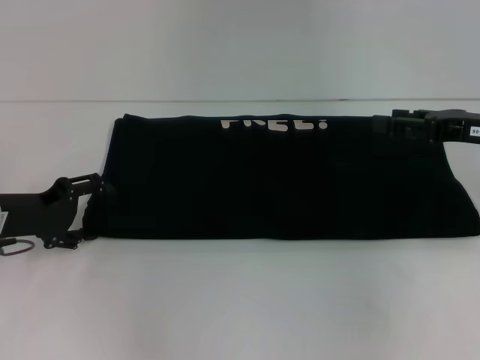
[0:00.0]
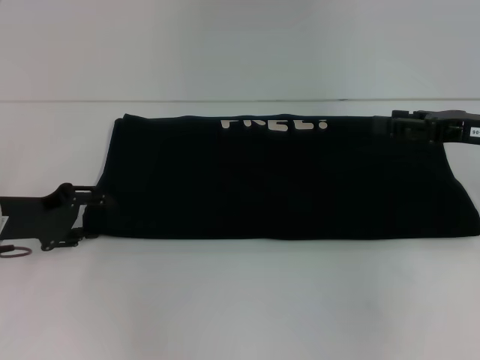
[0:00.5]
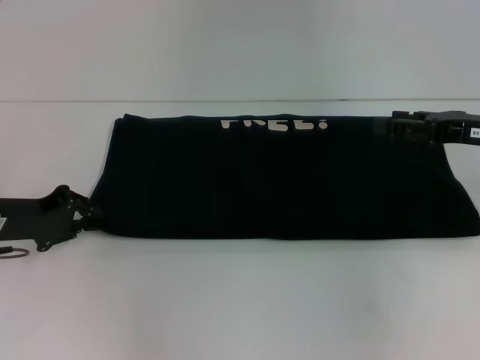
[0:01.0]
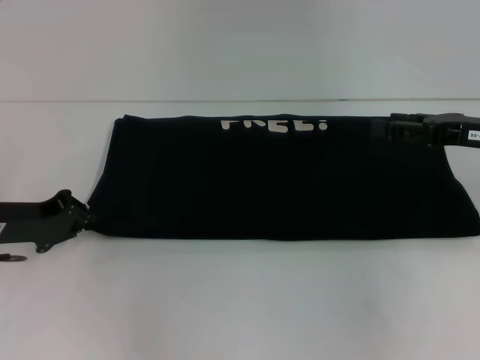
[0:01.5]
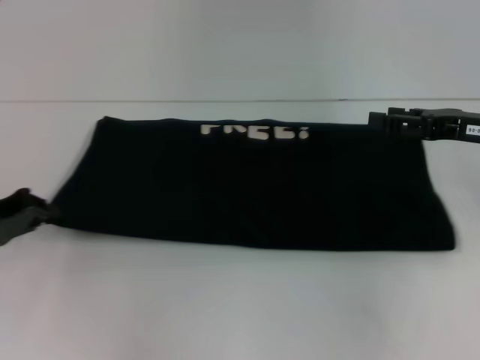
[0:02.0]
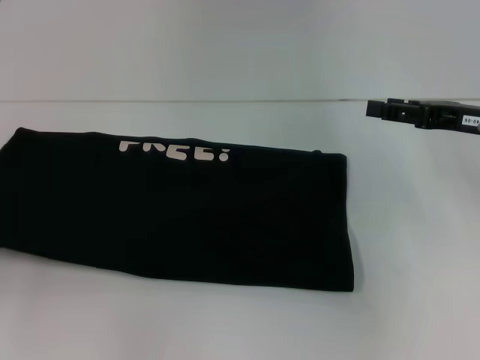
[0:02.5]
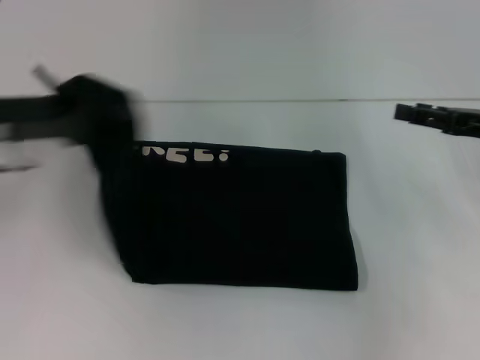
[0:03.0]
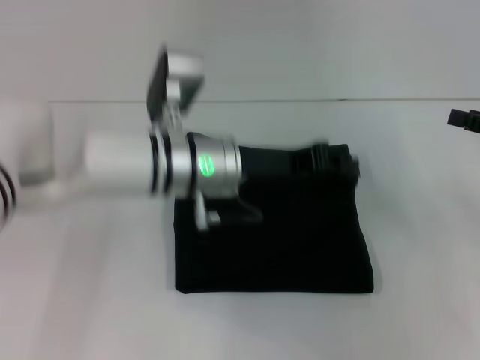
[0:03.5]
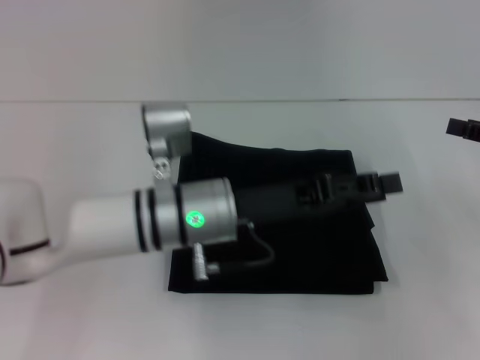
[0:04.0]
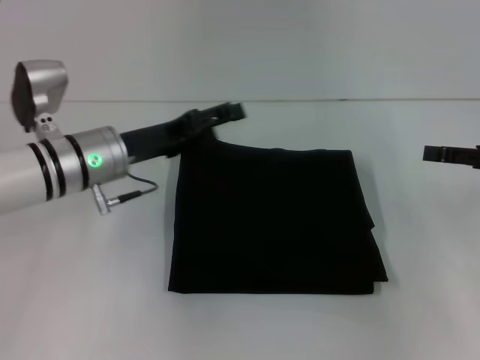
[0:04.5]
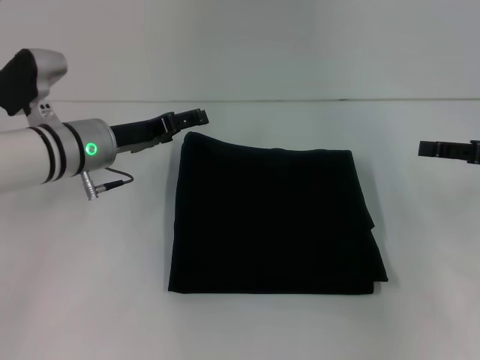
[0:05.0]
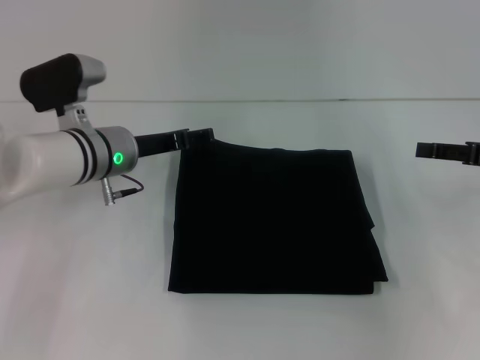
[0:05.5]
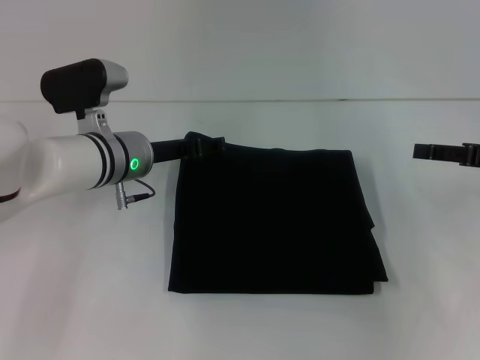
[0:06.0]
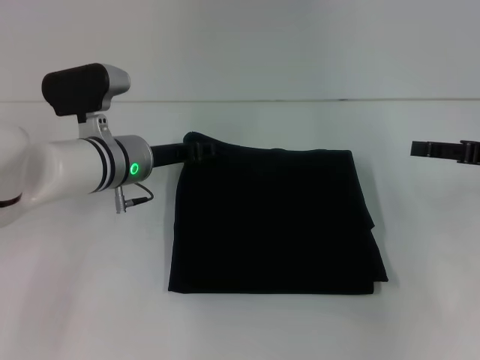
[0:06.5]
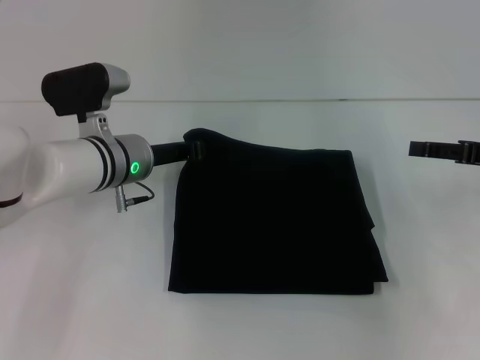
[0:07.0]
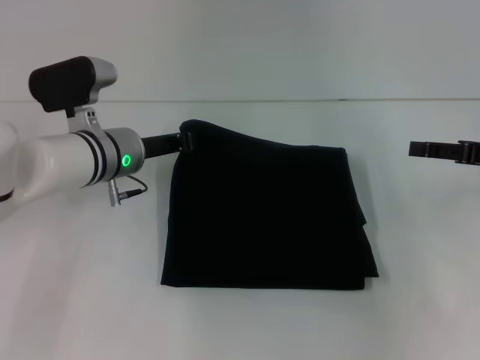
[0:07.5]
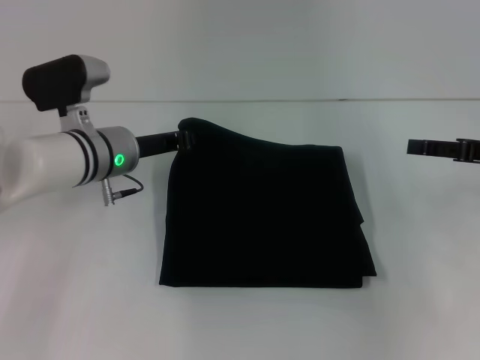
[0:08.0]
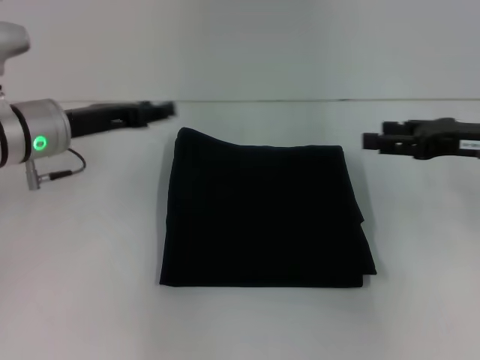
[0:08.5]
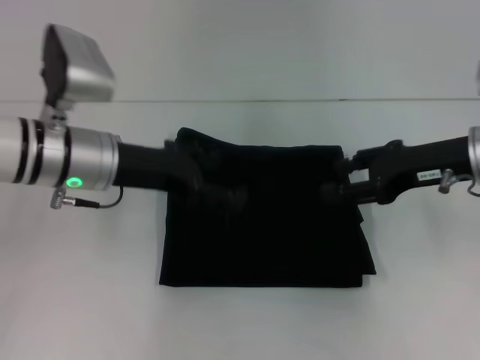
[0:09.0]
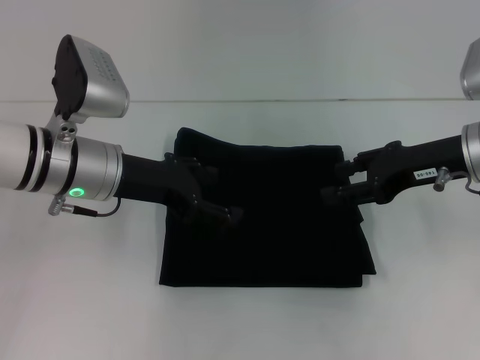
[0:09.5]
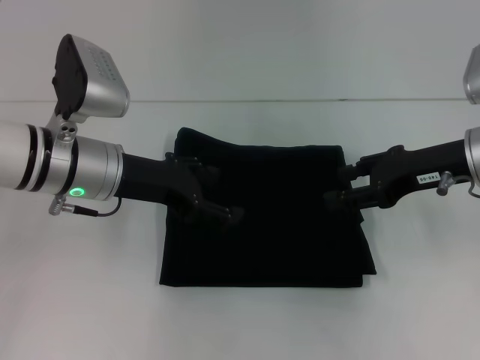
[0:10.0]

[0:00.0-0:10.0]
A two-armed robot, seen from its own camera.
Step, 0:00.0 to 0:03.5: Fold the clothes with your left hand.
0:00.0 to 0:02.0: The left gripper closes its fingers.
0:02.0 to 0:04.0: The right gripper shifts approximately 5 cm to the right. The left gripper goes some 25 cm to the right.
0:04.0 to 0:06.0: The left gripper moves forward and to the left, some 10 cm, and opens.
0:06.0 to 0:08.0: The left gripper closes its fingers.
0:08.0 to 0:10.0: The left gripper travels upward by some 5 cm, and opens up, while the right gripper travels to the left by roughly 10 cm.
